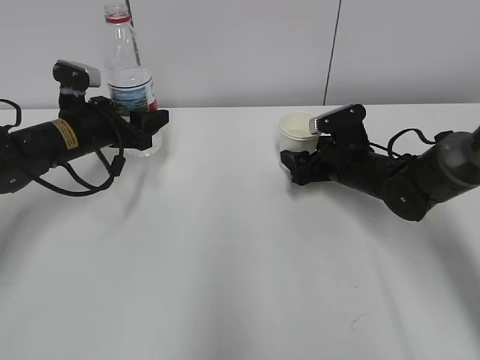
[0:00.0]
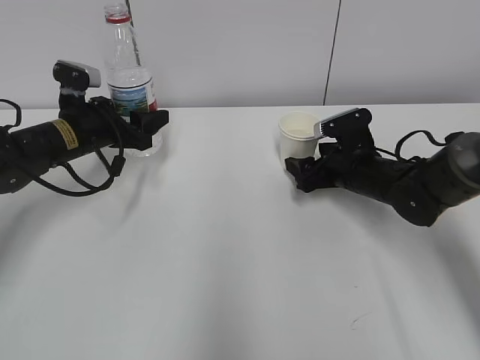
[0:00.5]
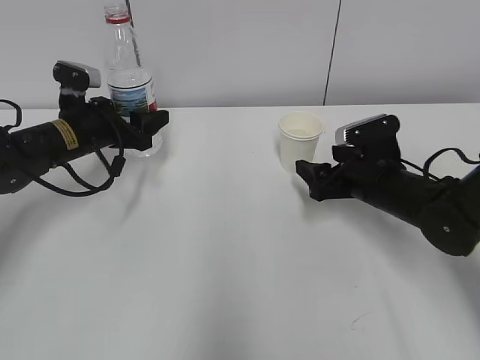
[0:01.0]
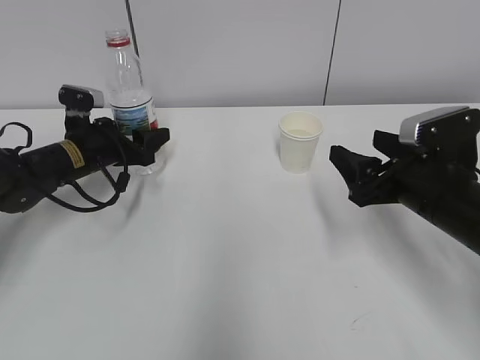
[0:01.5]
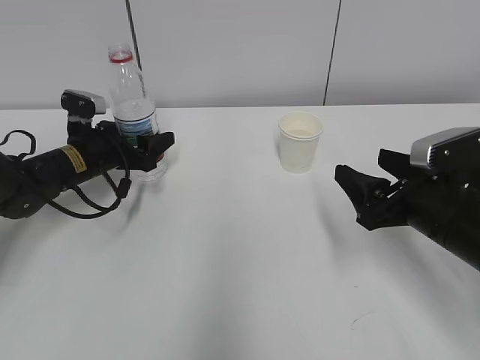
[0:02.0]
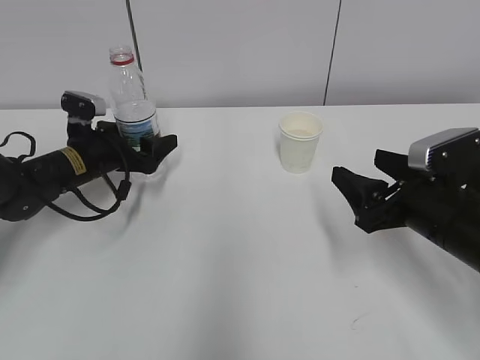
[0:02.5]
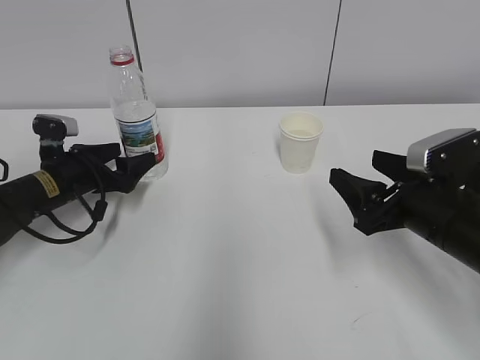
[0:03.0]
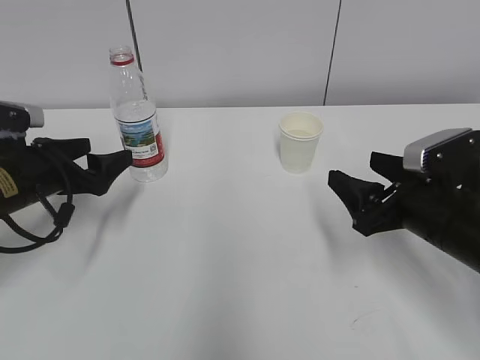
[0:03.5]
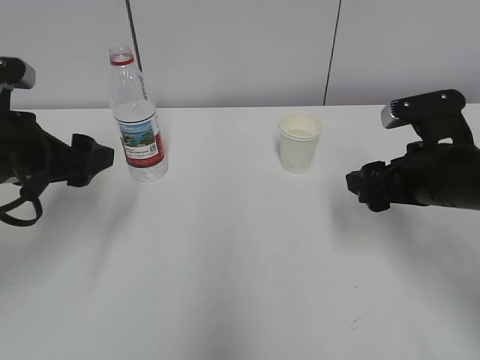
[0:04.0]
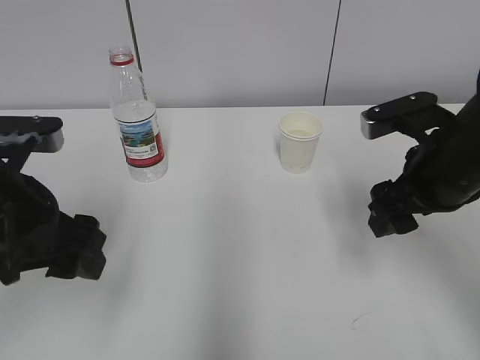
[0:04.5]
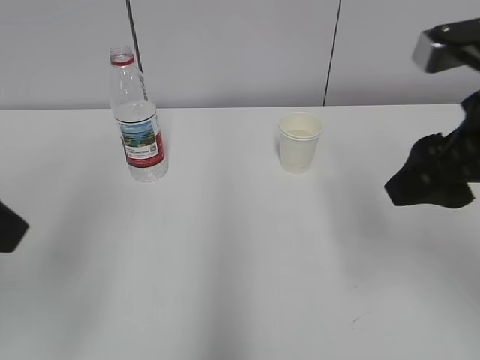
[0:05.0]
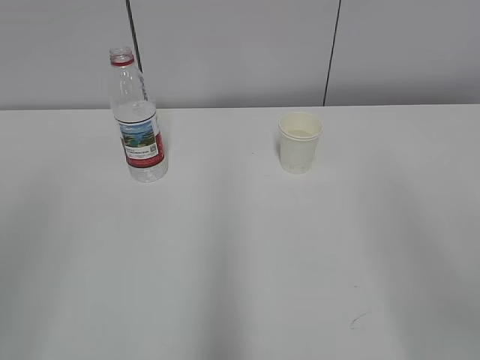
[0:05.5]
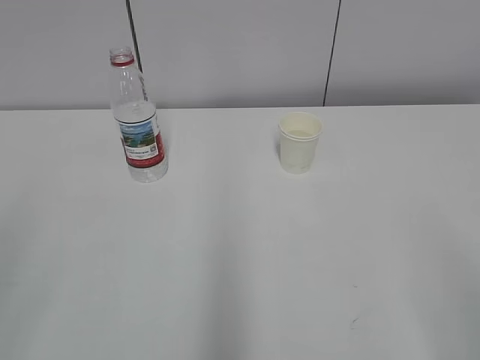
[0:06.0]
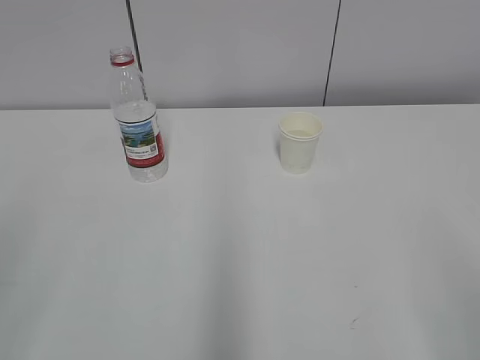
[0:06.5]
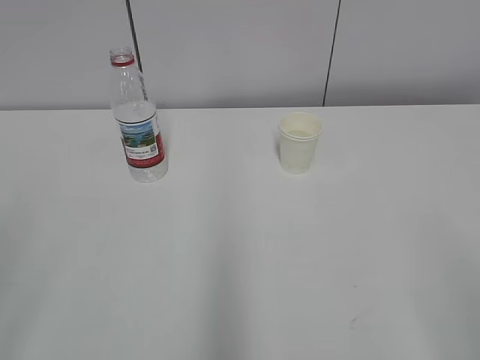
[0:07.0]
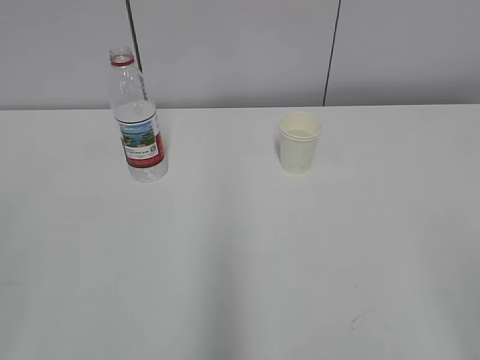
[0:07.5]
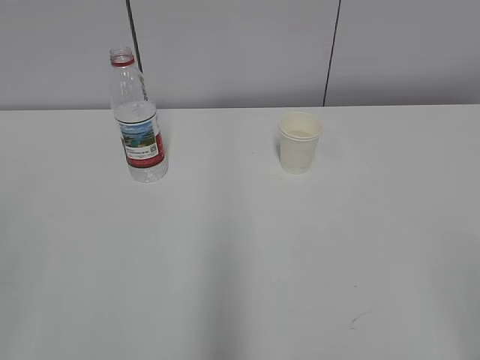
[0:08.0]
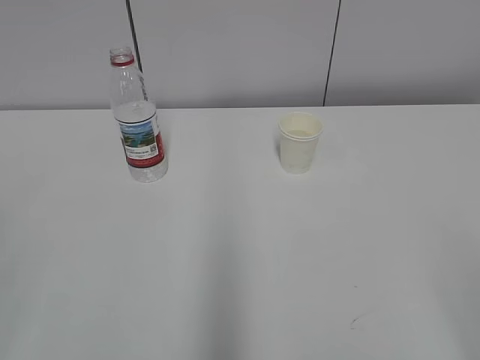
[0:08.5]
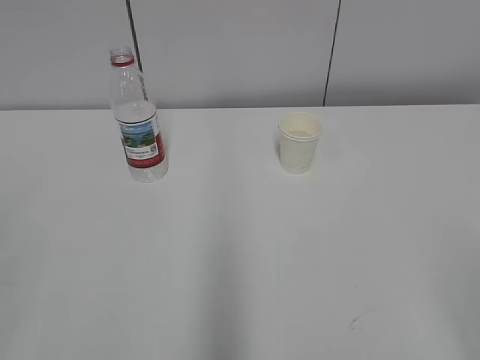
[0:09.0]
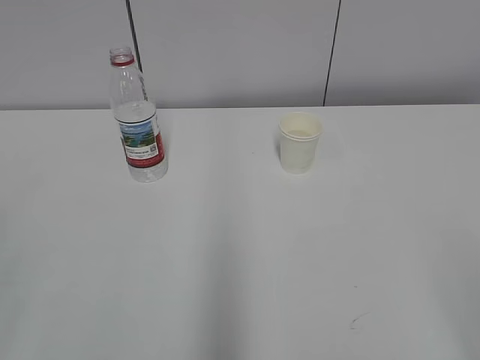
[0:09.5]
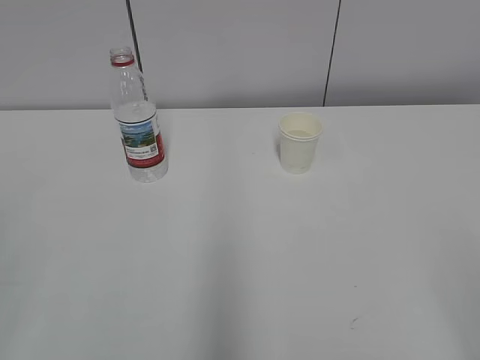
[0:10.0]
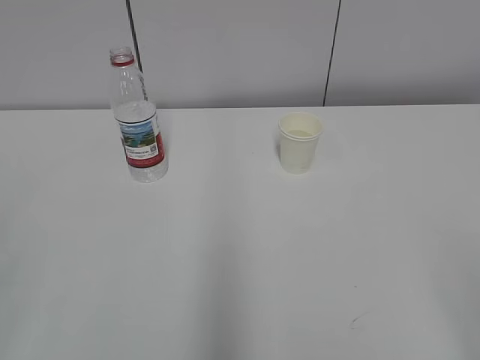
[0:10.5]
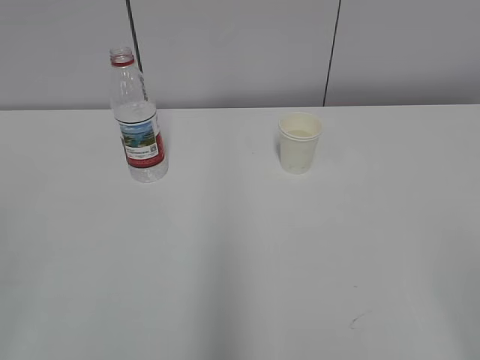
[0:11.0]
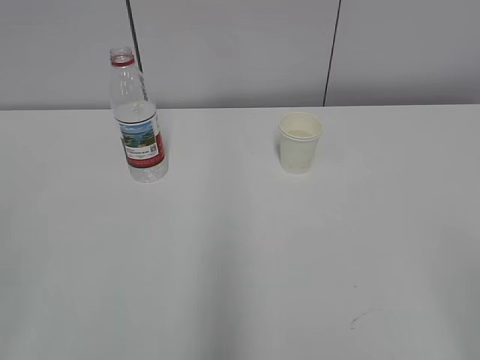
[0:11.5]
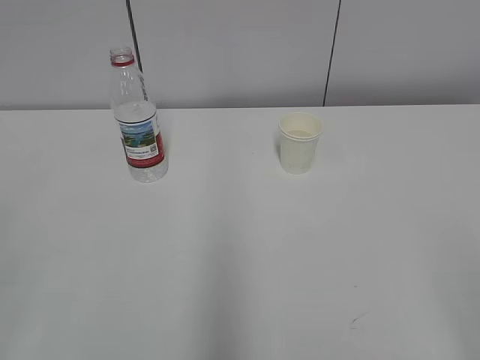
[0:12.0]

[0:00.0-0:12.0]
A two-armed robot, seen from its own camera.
0:00.0 to 0:02.0: The right gripper goes roughly 15 cm backward.
0:02.0 to 0:04.0: The left gripper travels backward and upward by about 20 cm, and opens its fingers.
0:04.0 to 0:06.0: Both grippers move backward, roughly 25 cm.
0:08.0 to 0:12.0: Both grippers stay about where they are.

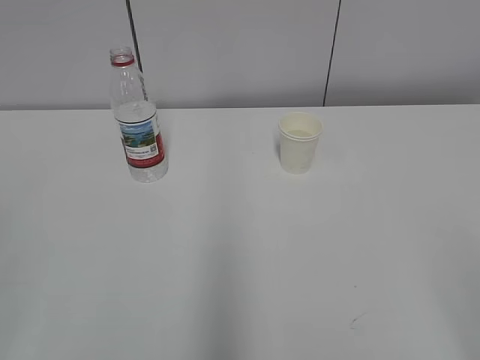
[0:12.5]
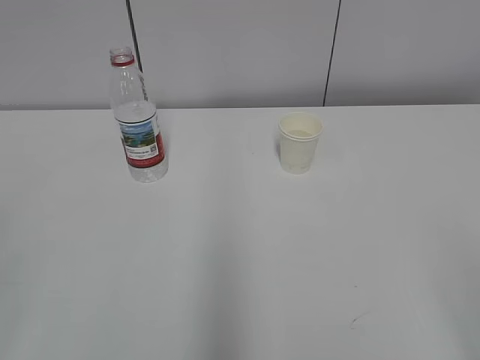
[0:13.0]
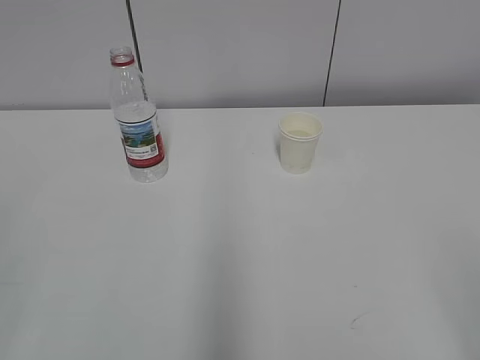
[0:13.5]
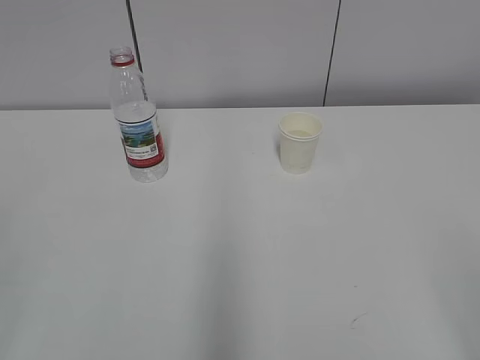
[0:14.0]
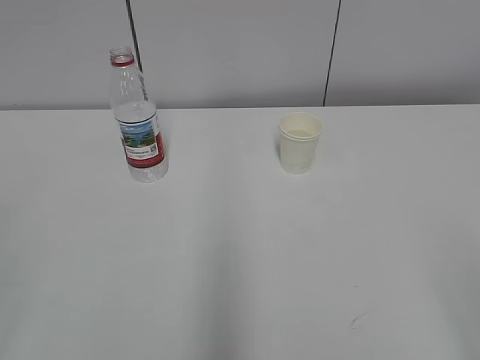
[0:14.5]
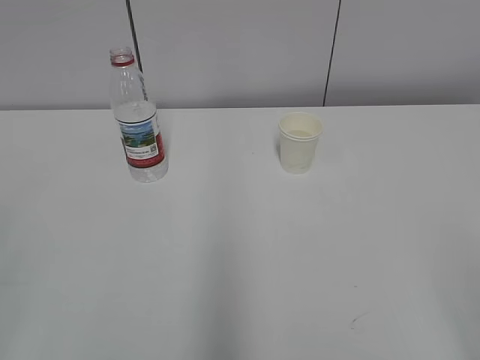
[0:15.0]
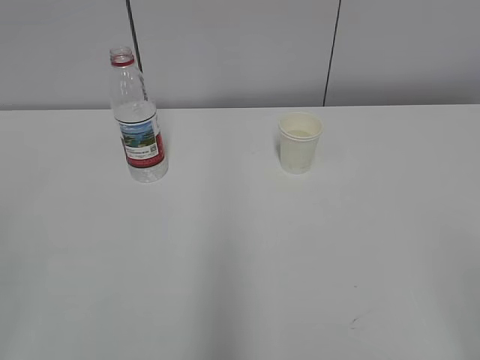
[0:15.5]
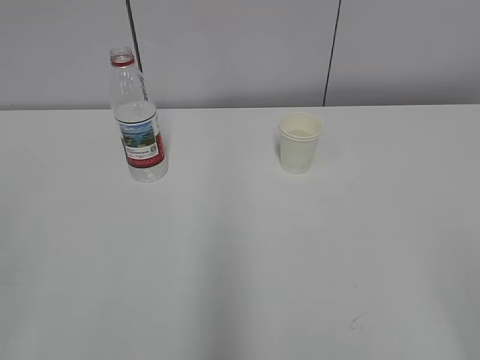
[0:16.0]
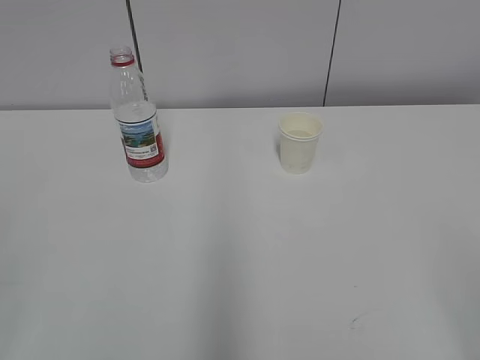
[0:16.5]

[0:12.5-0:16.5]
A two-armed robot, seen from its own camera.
0:12.5 to 0:16.5: Neither gripper changes place.
